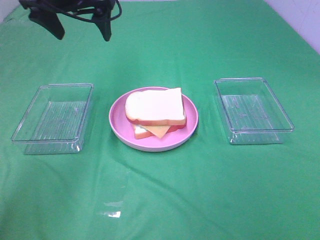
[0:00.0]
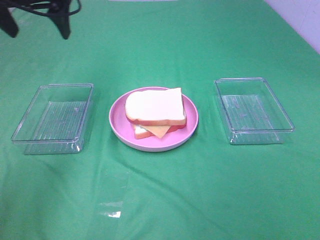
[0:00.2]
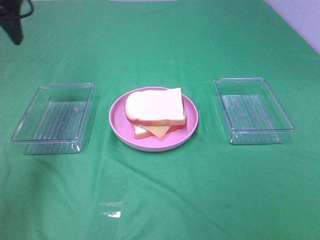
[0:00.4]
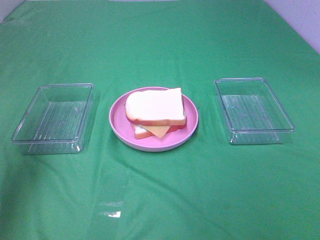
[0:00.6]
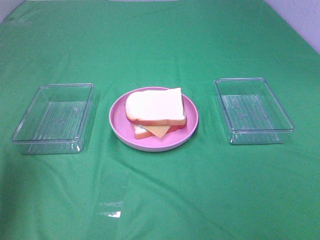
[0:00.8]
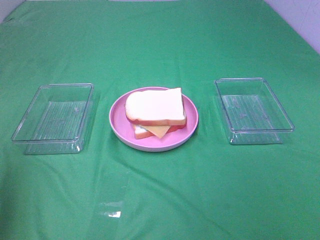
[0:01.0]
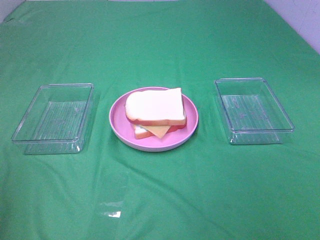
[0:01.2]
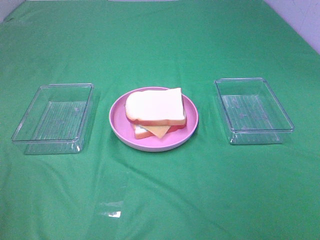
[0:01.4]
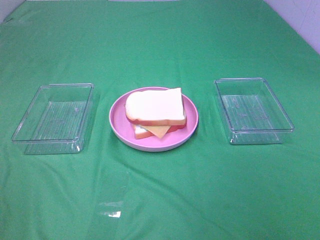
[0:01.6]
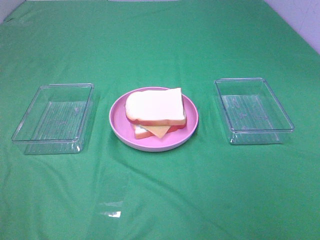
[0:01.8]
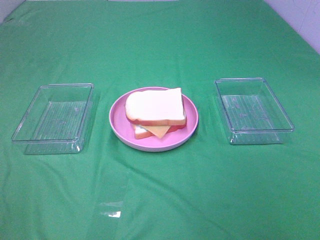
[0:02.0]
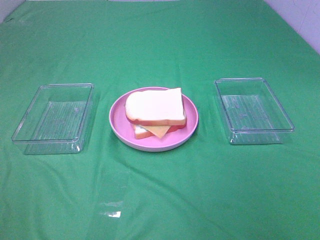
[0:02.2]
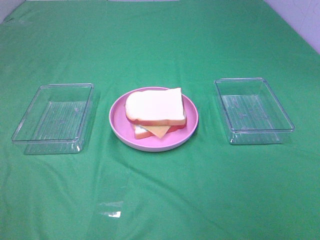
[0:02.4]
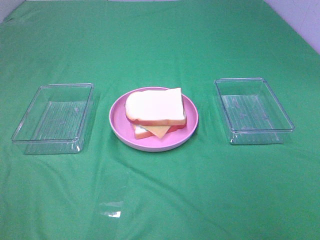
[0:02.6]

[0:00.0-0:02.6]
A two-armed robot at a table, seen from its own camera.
Task of the whole recording: Make sandwiches.
0:00.0 to 0:01.2: The left gripper moves backward and to the left, roughly 40 cm.

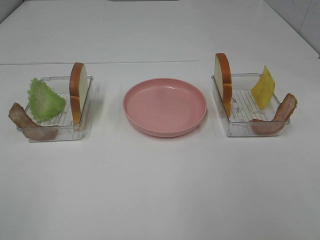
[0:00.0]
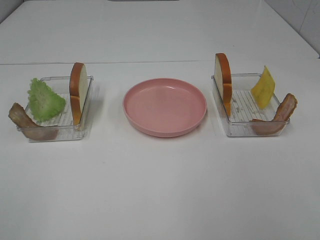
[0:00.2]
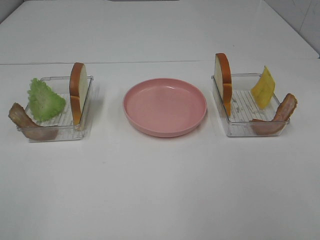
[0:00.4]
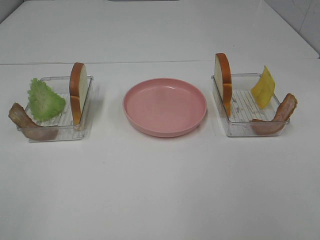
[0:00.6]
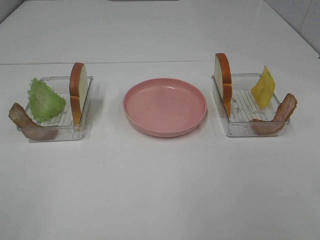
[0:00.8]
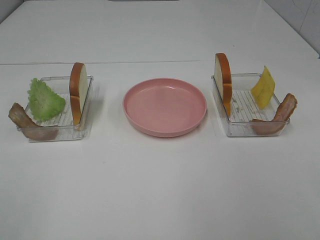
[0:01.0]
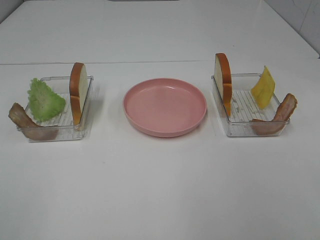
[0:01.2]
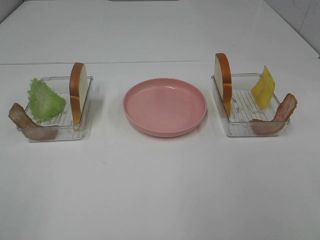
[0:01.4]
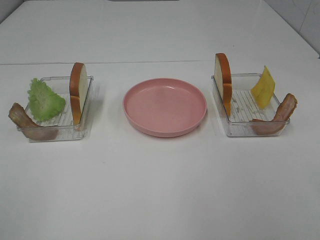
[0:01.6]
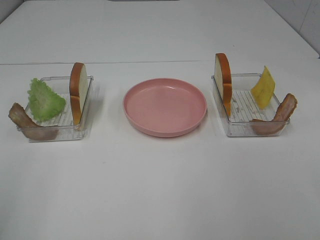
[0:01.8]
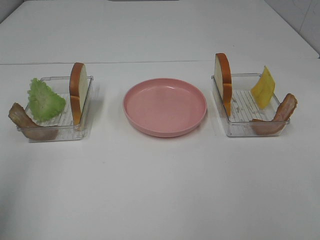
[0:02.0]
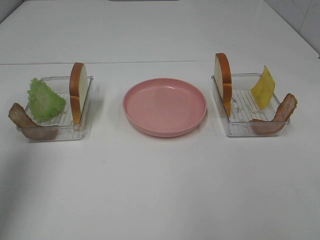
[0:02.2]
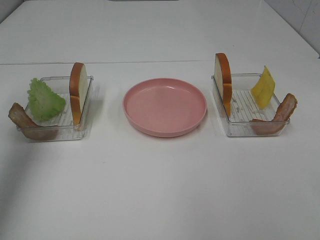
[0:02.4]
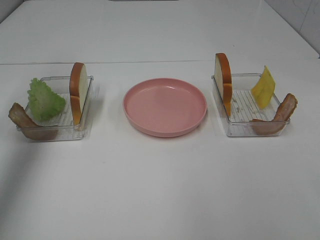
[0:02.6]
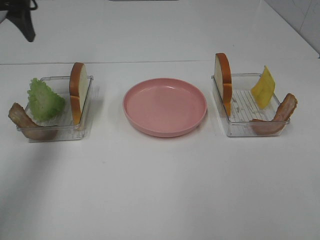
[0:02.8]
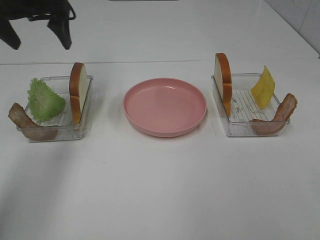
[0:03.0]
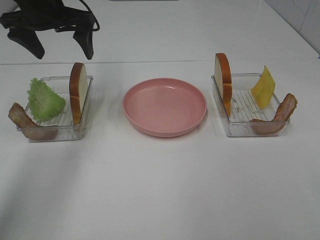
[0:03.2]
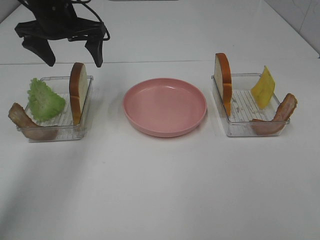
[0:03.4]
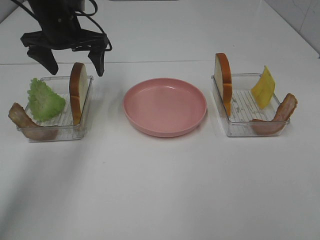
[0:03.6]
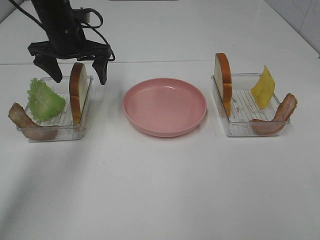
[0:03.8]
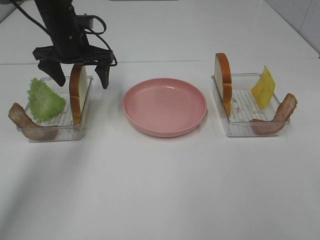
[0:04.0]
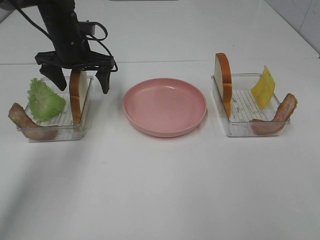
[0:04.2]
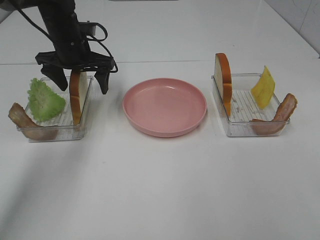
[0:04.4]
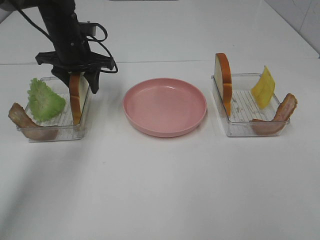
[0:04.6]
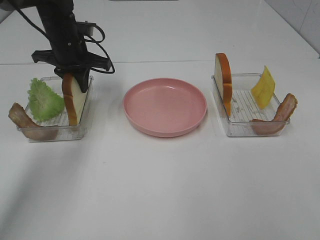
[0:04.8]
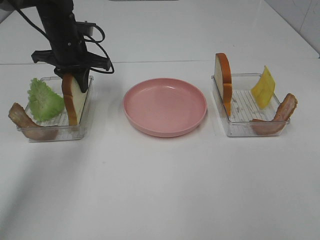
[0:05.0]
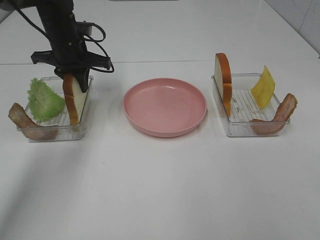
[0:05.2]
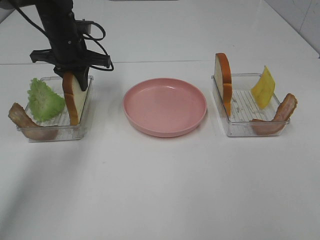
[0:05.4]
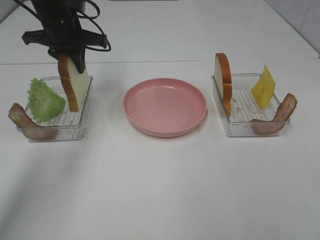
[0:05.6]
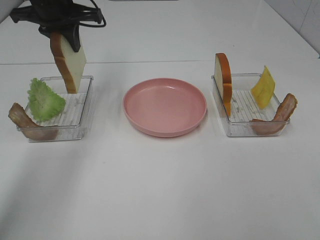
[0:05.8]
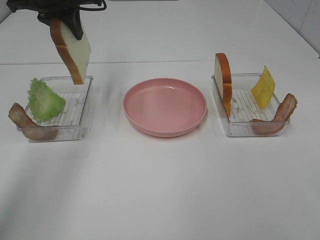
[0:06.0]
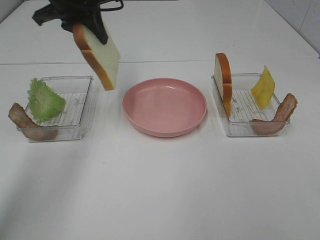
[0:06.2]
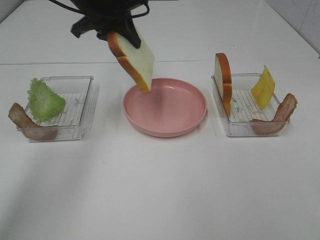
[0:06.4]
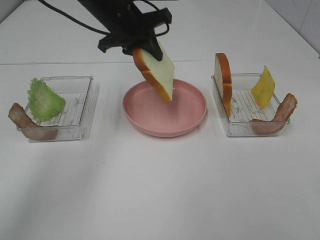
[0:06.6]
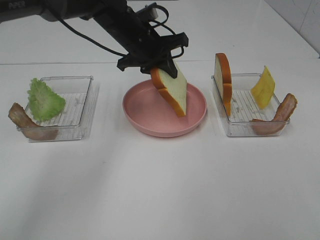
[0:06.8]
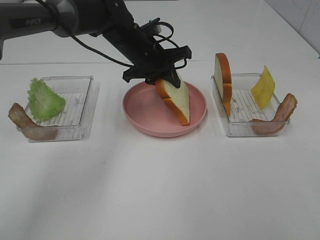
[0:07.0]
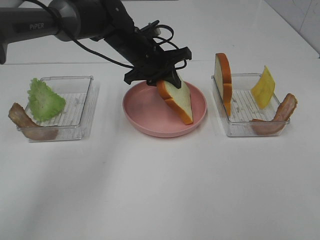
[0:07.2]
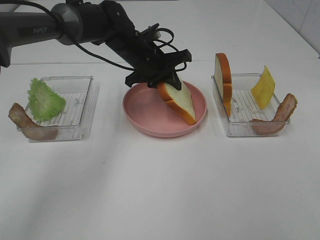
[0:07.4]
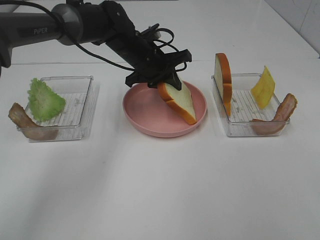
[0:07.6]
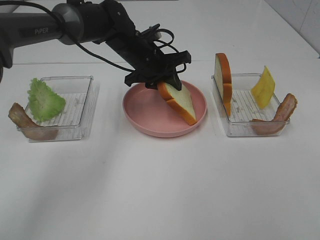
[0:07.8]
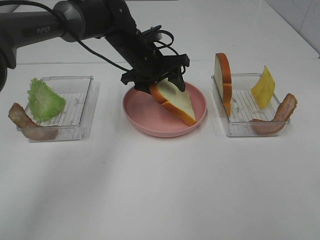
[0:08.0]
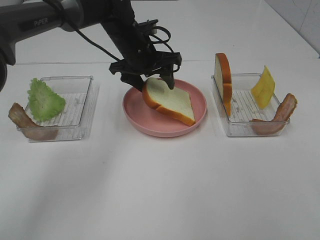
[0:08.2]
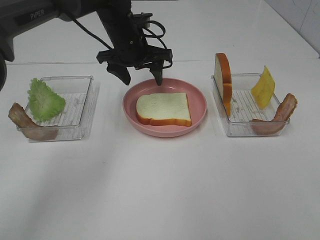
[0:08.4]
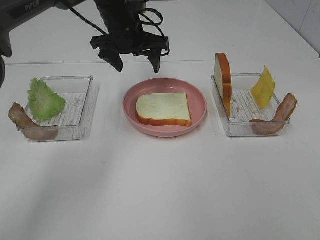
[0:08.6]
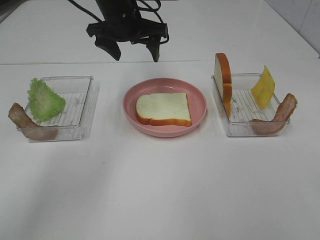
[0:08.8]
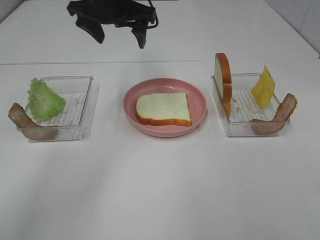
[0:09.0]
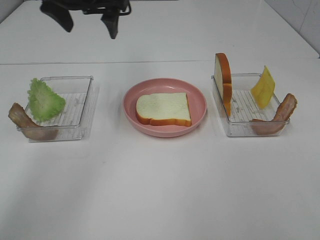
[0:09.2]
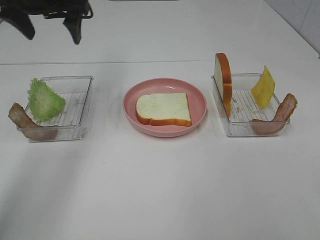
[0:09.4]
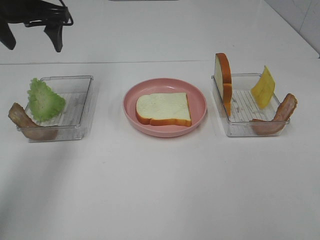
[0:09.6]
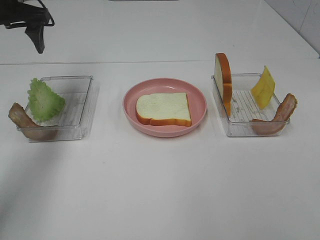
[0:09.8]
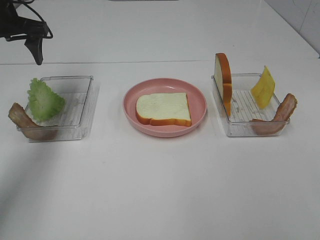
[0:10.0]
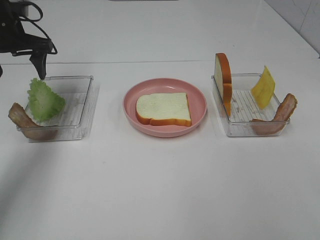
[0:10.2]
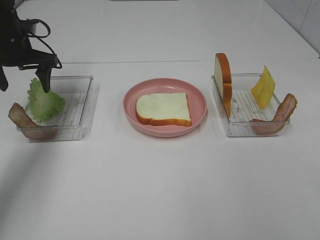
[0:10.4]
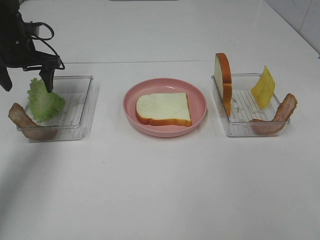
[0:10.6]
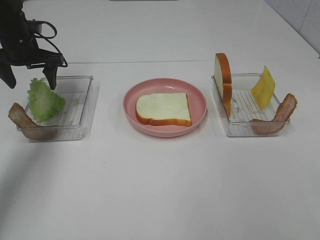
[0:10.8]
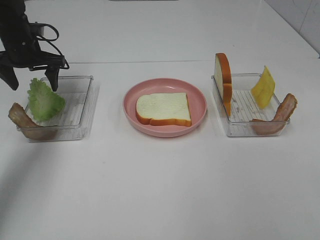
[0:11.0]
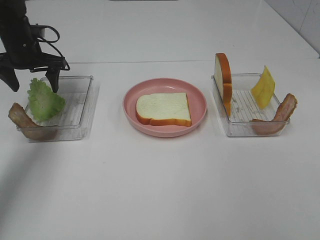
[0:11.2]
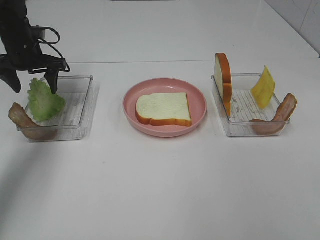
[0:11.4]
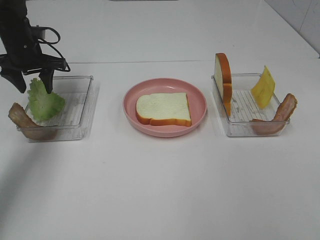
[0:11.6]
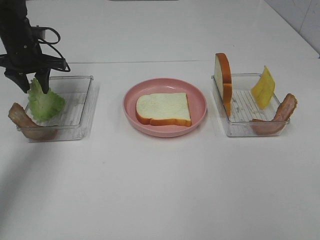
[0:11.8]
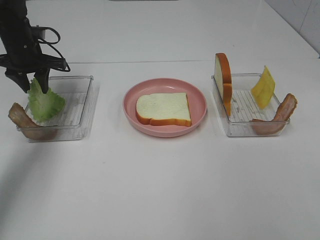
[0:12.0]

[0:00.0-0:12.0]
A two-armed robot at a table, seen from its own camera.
Task of the whole recording: Make sandwiches.
Step, 0:00.0 to 0:05.2: Left hand:grab the bread slice.
Step, 0:05.4 to 0:08.2: Left hand:place the bread slice on the plate.
0:01.6 to 0:03.0: The left gripper travels forward by approximately 40 cm.
0:03.0 to 0:04.4: The left gripper shifts approximately 10 cm downward.
0:04.4 to 0:06.0: The left gripper heads upward, covering approximately 10 cm, and closes up.
0:06.0 to 0:07.6: The left gripper moves downward and to the right, about 20 cm.
0:07.6 to 0:09.0: The left gripper is displaced upward and to the left by approximately 15 cm, and opens its fingers.
0:09.0 to 0:10.4: The left gripper moves to the left and downward, some 20 cm.
0:10.4 to 0:12.0: The left gripper closes.

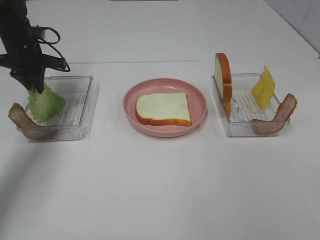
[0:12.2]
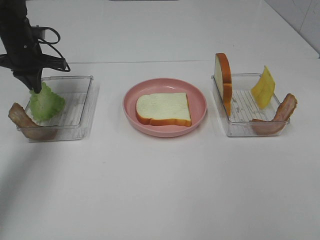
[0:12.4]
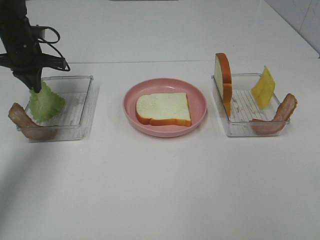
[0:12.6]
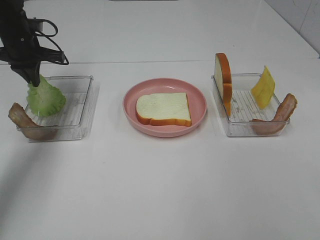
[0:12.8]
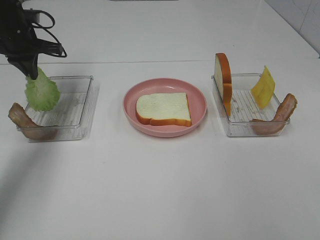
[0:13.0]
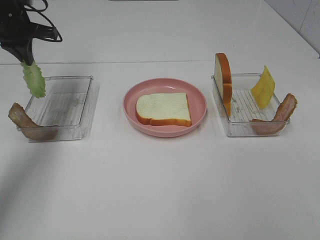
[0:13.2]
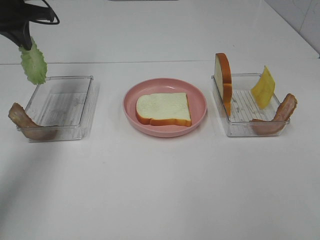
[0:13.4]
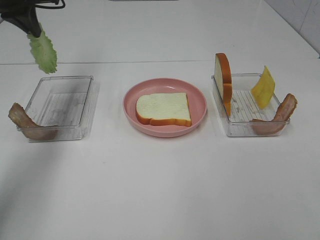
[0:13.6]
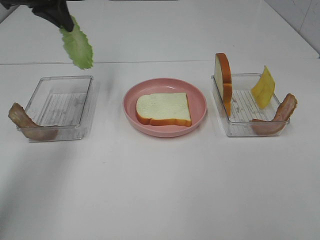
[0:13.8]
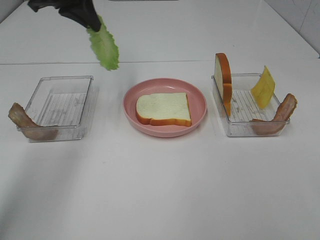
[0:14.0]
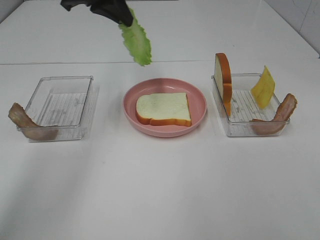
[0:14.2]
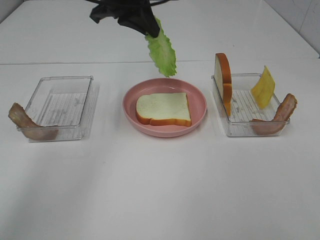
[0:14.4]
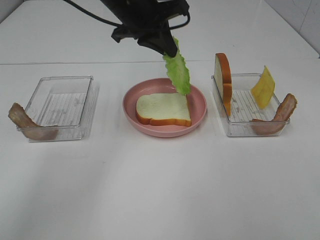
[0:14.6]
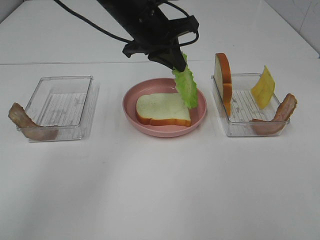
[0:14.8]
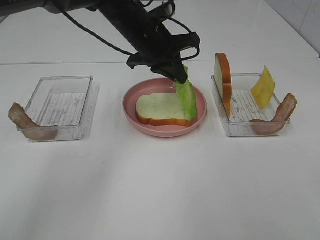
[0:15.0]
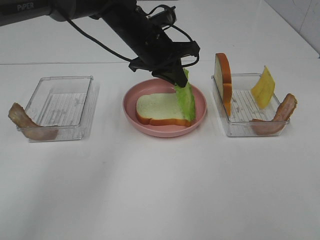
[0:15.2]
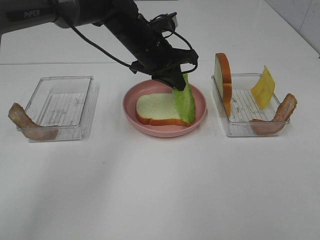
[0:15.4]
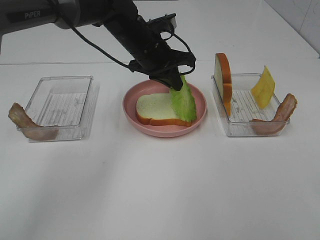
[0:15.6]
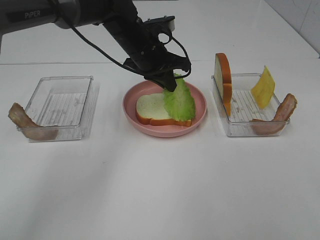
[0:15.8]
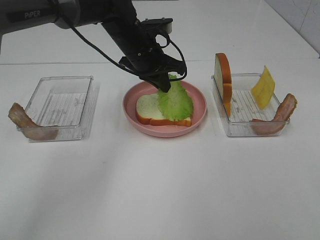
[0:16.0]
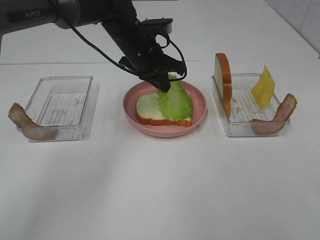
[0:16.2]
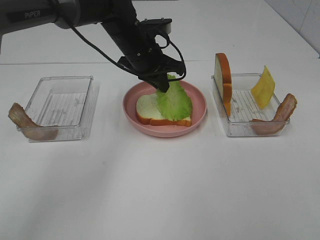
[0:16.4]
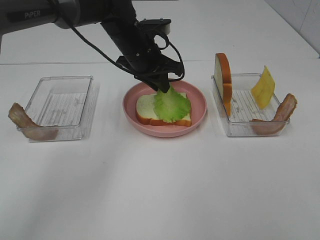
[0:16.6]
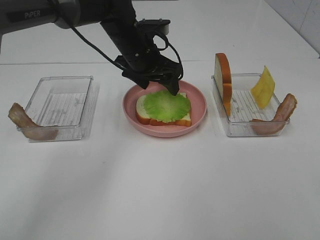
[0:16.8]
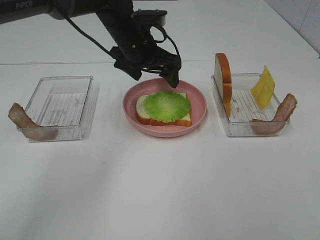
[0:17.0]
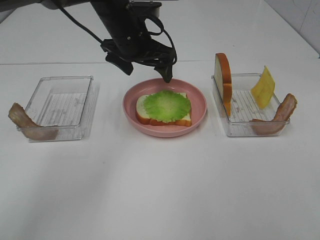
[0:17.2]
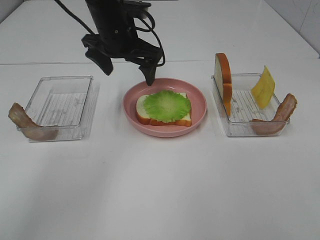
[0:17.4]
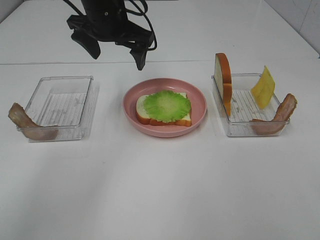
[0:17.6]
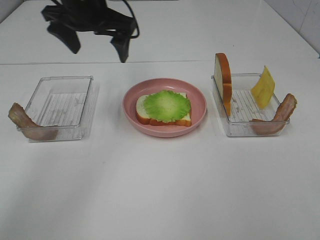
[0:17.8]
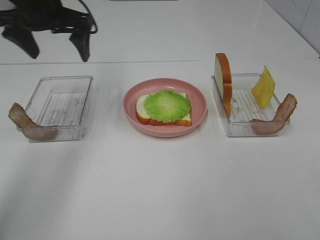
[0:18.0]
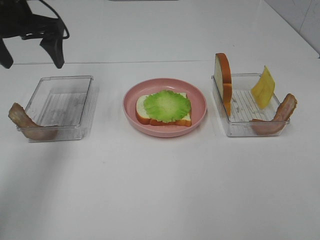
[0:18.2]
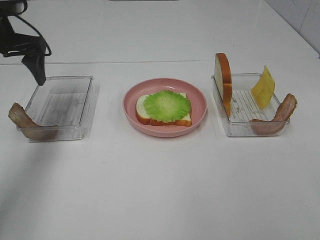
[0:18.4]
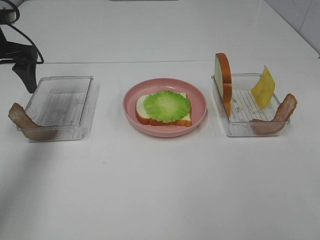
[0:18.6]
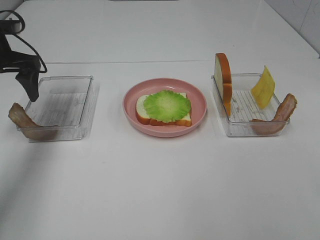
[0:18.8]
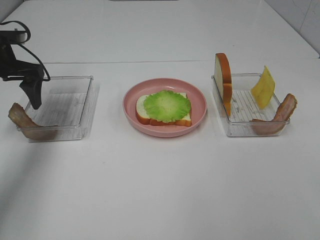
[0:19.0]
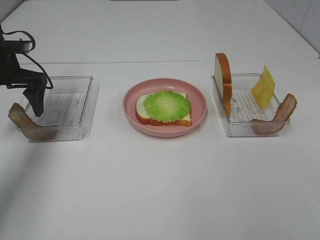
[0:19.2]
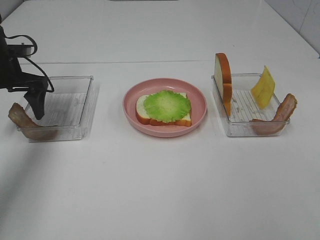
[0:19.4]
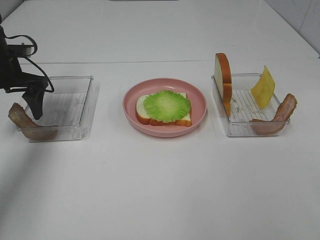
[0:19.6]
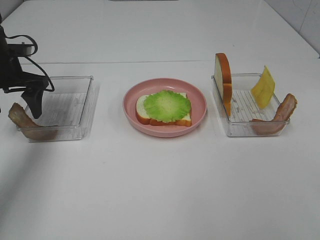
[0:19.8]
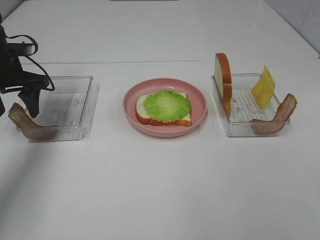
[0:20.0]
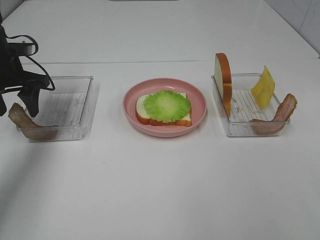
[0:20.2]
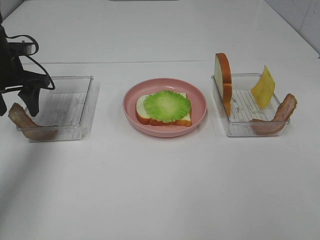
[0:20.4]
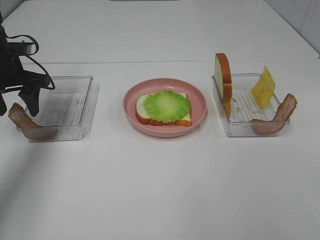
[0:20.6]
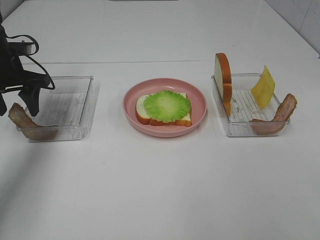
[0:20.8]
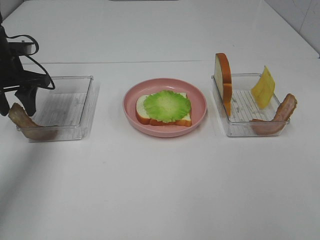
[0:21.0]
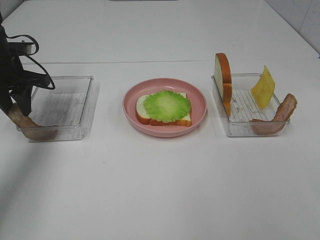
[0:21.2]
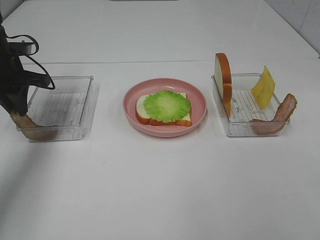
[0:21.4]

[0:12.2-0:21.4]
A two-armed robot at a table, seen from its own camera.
Task of the whole recording: Make sandwiches.
Step, 0:12.8 to 0:17.0: Left hand:place the lettuce slice on the bread slice.
0:12.2 to 0:13.8: The left gripper moves upward and to the right, some 15 cm.
0:13.8 to 0:15.2: The left gripper goes about 20 cm to the right and downward.
0:15.2 to 0:16.8: The left gripper opens up.
0:16.8 to 0:18.4: The left gripper is displaced to the left by some 25 cm.
0:18.4 to 0:19.8: The left gripper is displaced downward by some 5 cm.
0:19.8 to 0:21.4: The left gripper closes up.
